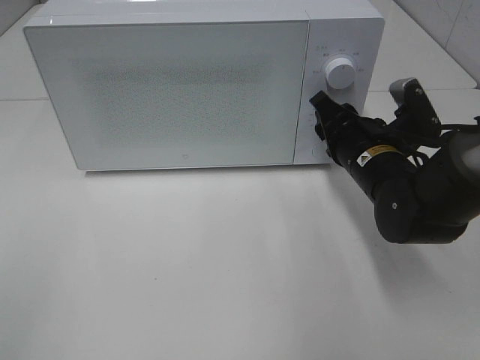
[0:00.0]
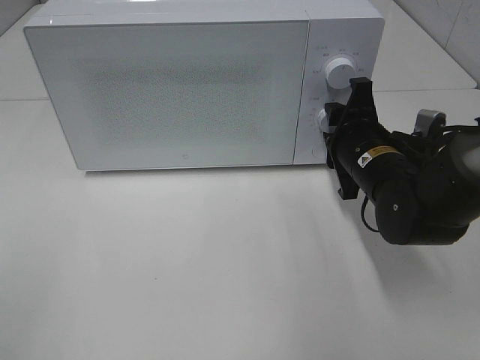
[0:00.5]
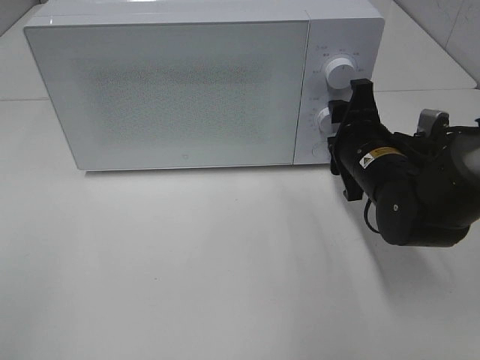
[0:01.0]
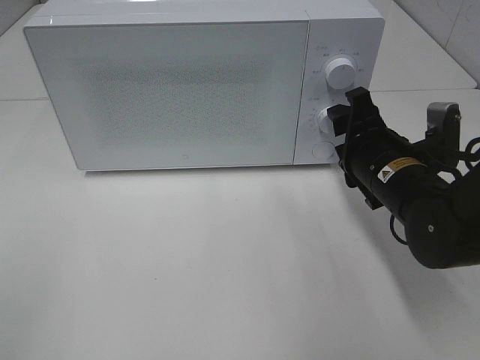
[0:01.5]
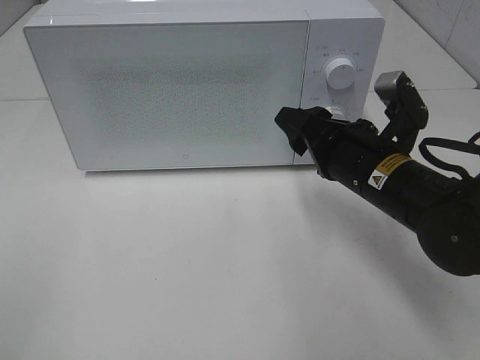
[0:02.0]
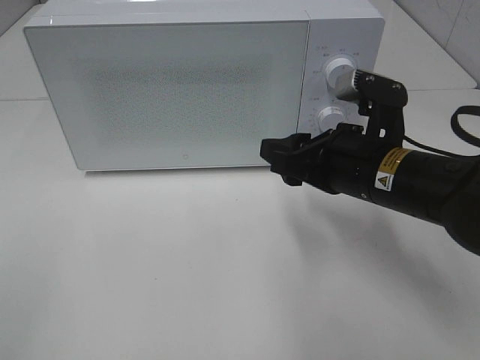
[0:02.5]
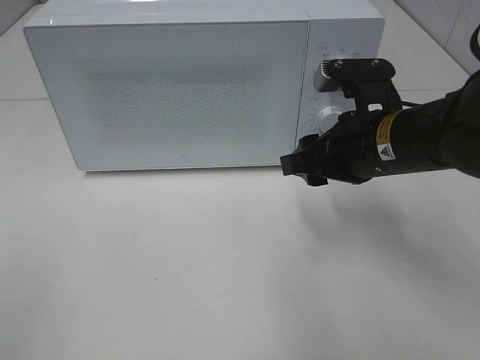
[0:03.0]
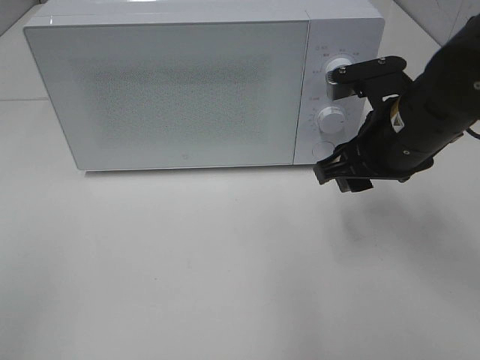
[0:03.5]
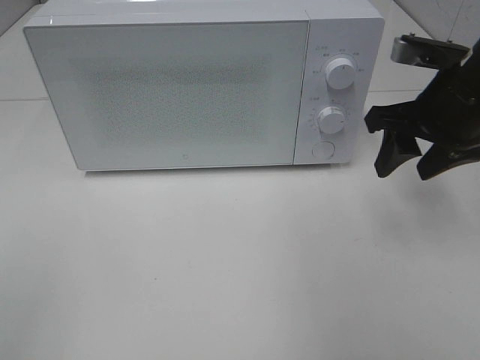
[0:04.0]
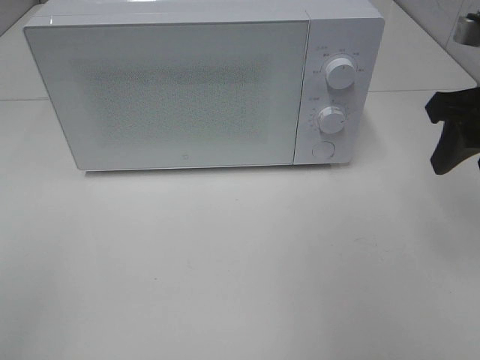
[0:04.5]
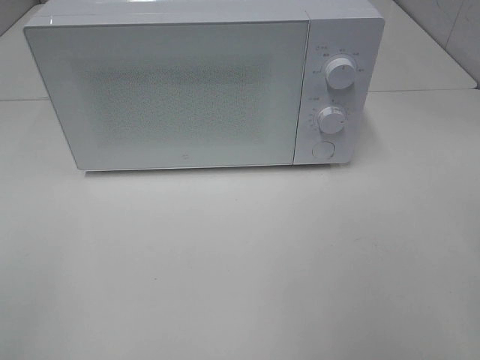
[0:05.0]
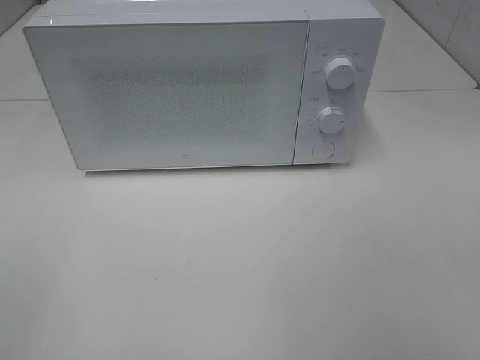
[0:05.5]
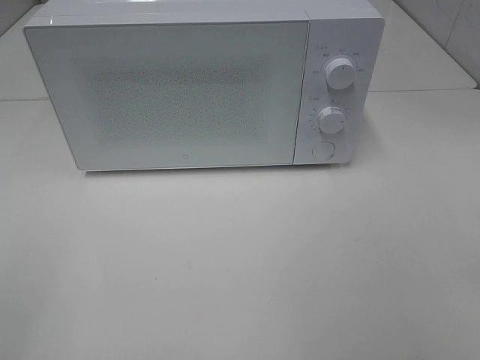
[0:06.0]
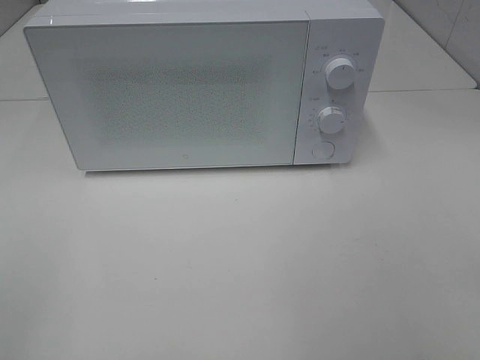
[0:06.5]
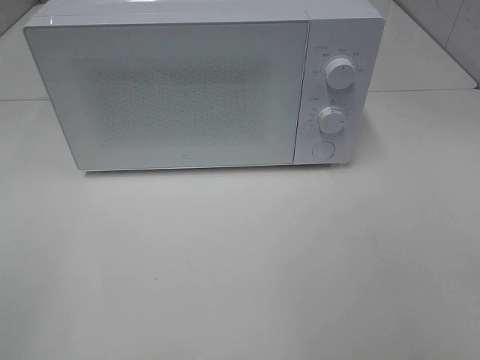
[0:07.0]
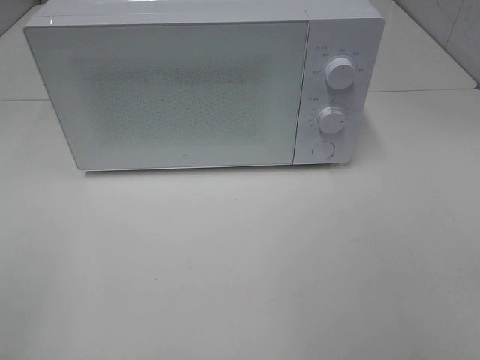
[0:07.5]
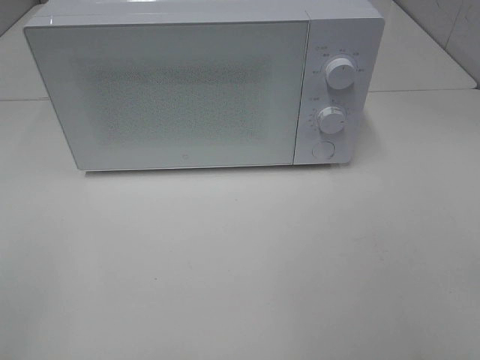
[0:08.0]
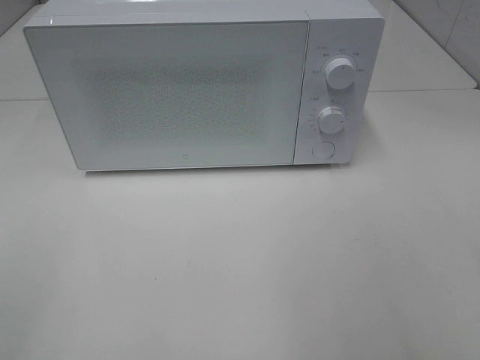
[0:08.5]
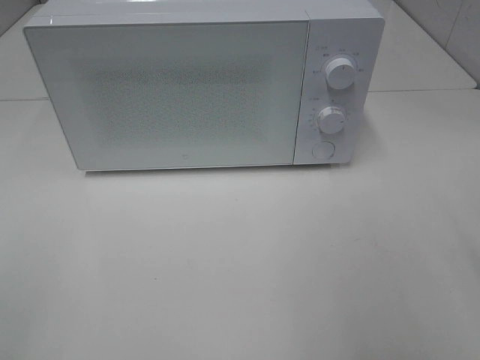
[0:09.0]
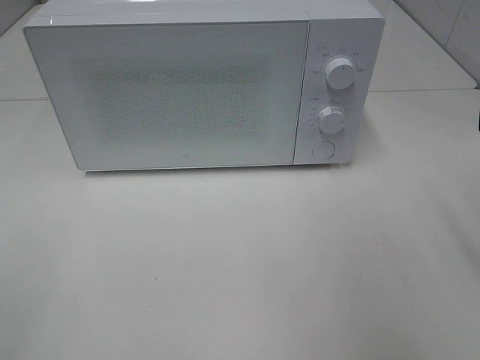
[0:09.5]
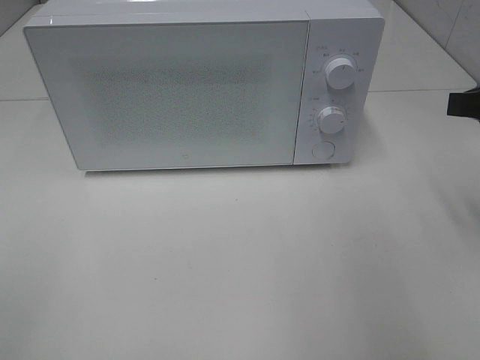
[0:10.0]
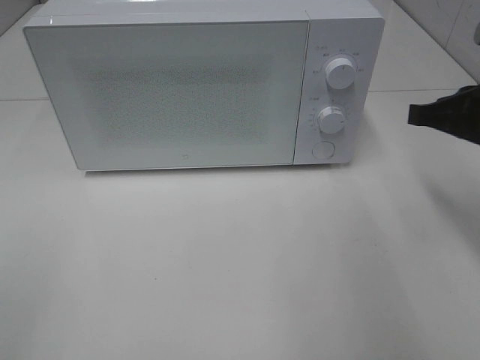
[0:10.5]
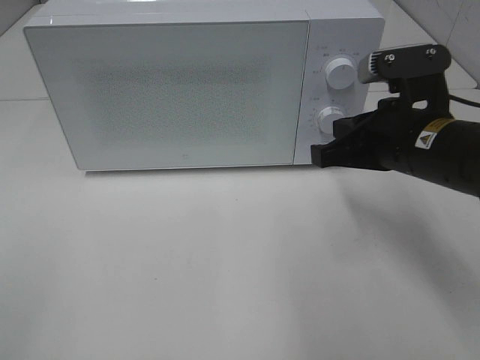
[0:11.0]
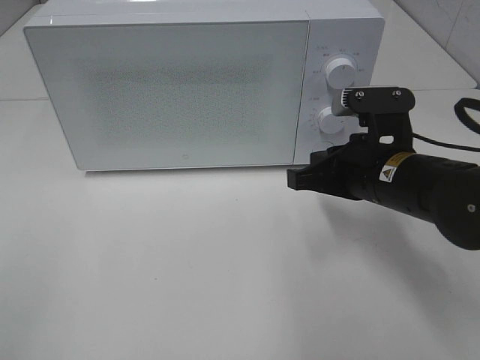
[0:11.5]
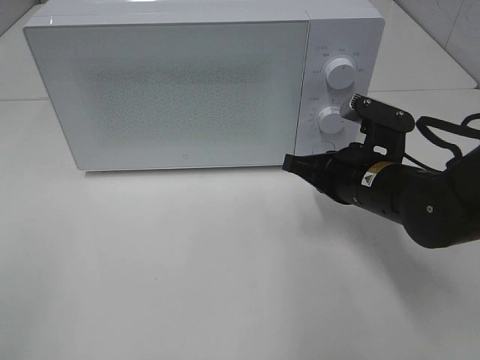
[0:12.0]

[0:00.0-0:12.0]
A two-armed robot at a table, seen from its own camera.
Task of the whole recording: Heat the burger.
0:00.0 to 0:02.0: The right gripper shifts roughly 5 cm backward.
0:02.0 to 0:04.0: The right gripper is displaced to the right and upward by roughly 10 cm.
0:04.0 to 0:06.0: The right gripper goes approximately 30 cm backward.
0:08.0 to 0:10.0: The right gripper moves forward, roughly 25 cm.
0:10.0 to 0:12.0: The right gripper goes some 20 cm downward and to the left, and closes its fingers.

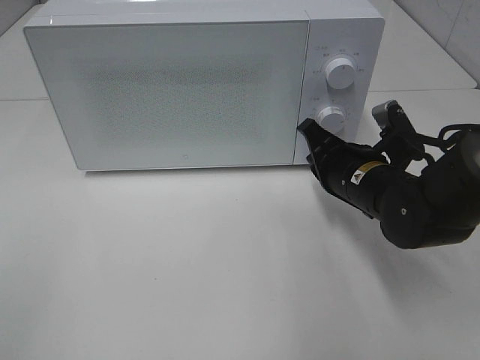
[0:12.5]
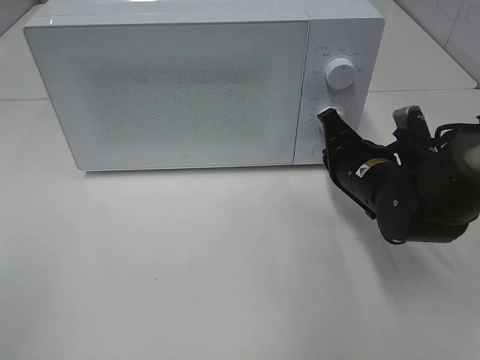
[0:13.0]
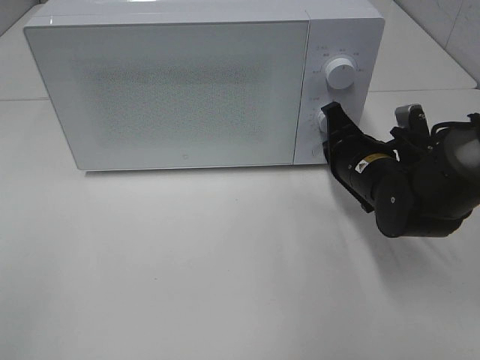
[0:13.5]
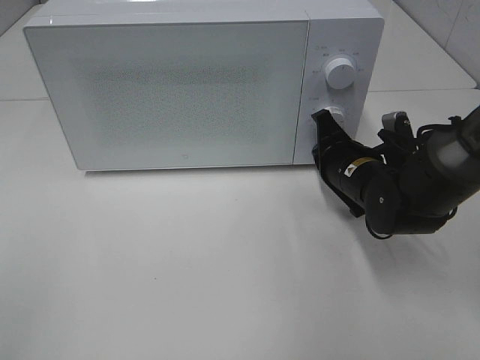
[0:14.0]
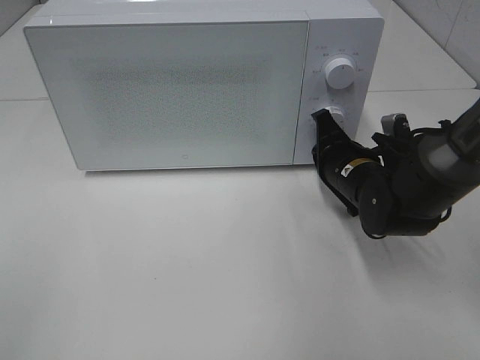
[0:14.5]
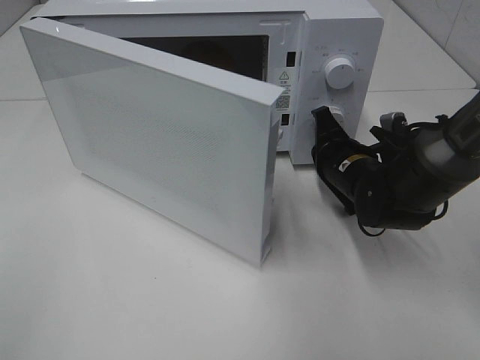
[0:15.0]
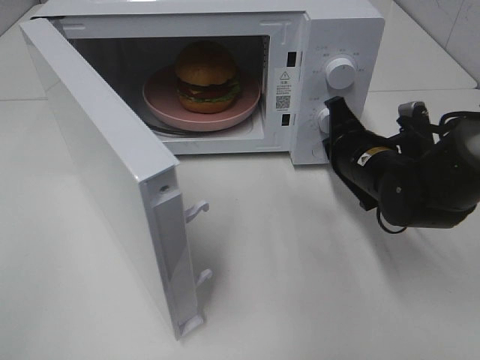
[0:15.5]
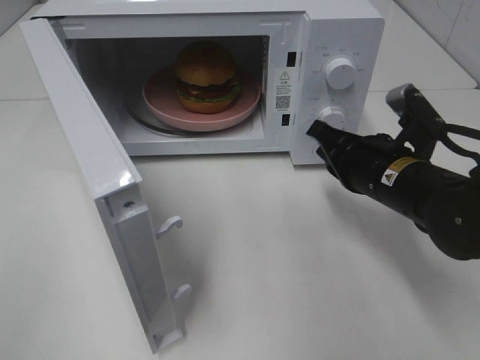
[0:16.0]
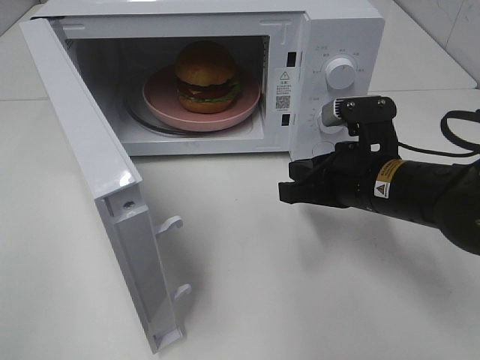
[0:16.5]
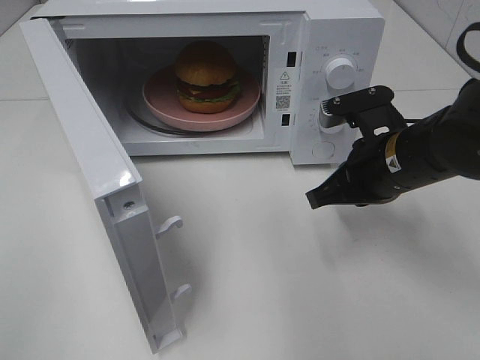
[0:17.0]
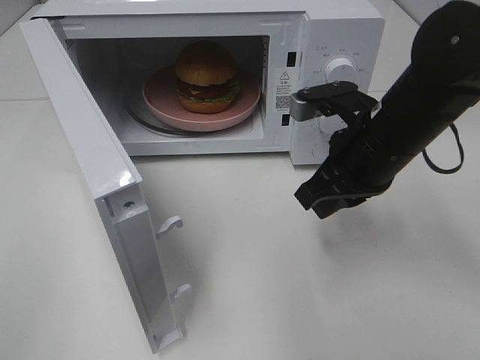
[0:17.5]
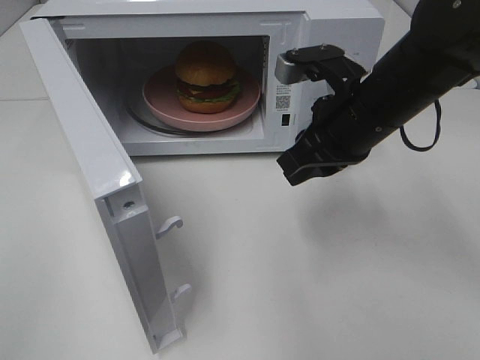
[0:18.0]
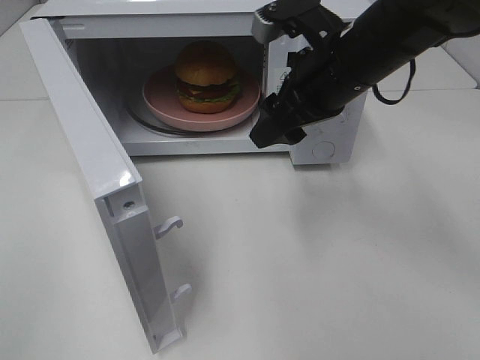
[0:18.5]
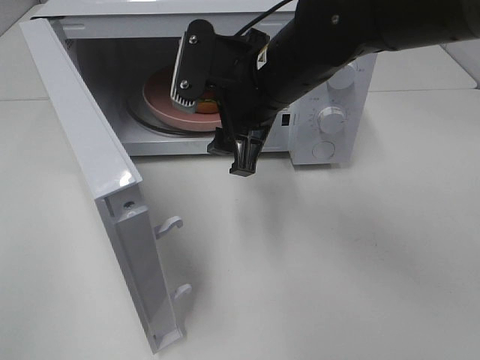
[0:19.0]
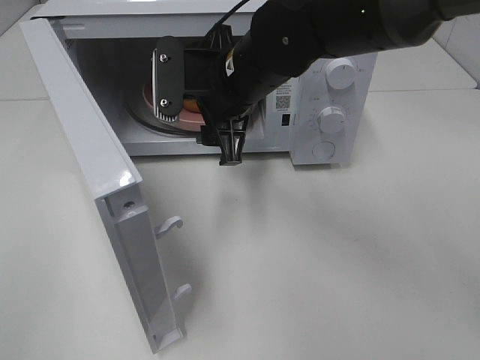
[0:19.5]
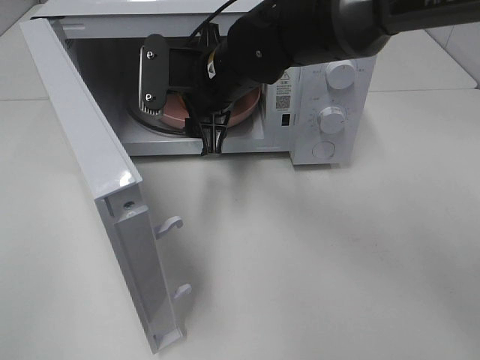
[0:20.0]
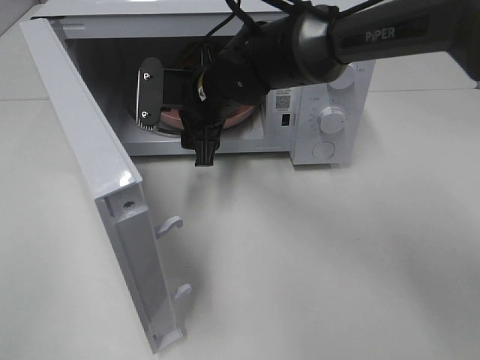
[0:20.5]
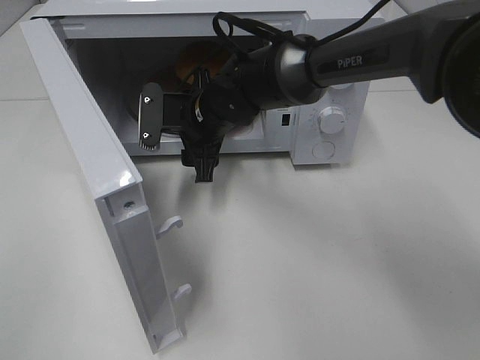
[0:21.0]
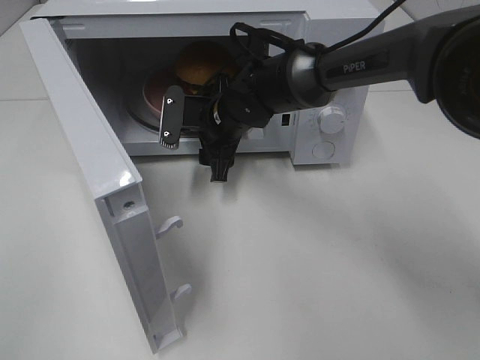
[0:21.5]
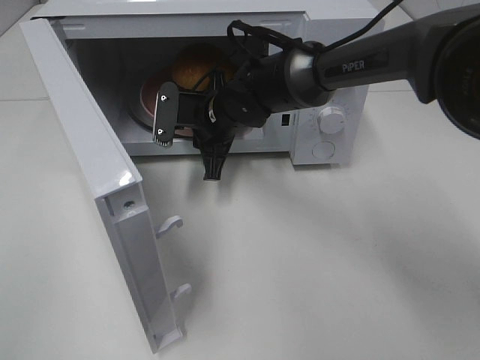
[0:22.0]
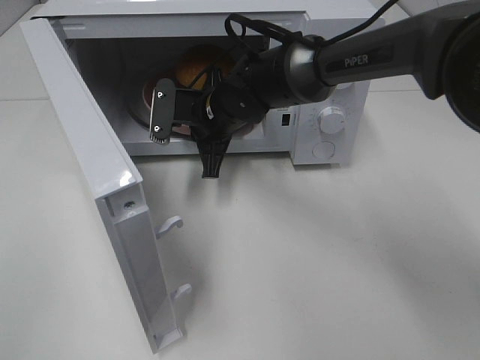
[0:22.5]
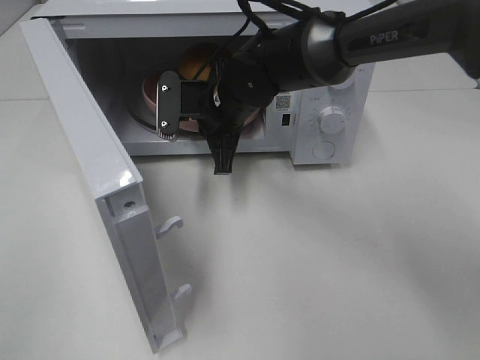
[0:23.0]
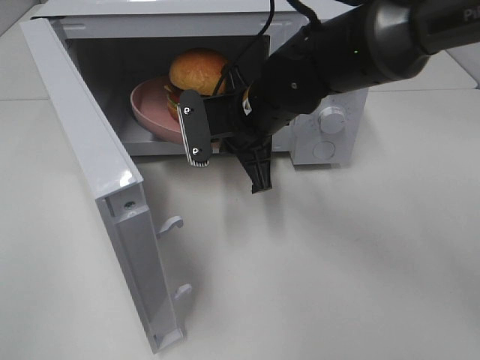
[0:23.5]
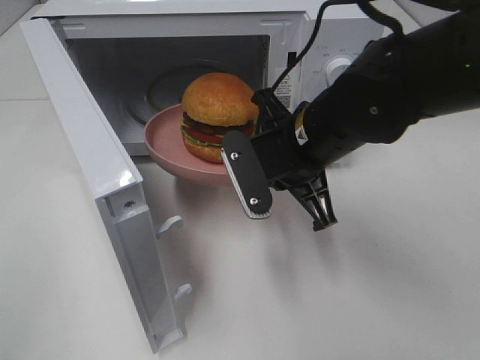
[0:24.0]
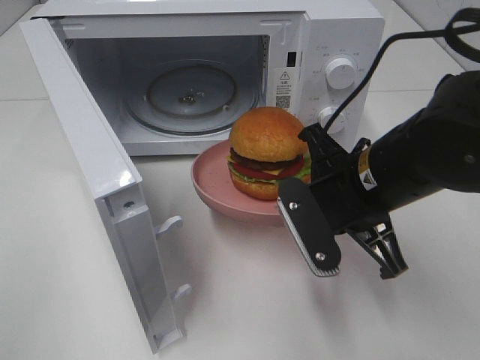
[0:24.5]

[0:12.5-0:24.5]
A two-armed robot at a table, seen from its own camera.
Task of the whole recording: Heat the burger.
Step, 0:12.5 to 0:15.5: Right hand: press the switch.
Step, 0:16.0 to 0:22.0: Right hand: grab the plate with the hamburger.
0:12.5 to 0:14.5: The grippers move only a little.
0:14.5 to 0:16.5: The right gripper is displaced backward and upward by roughly 10 cm.
0:16.5 to 0:18.5: The right gripper goes some 10 cm upward and forward, and opens.
0:18.5 to 0:20.5: The right gripper travels to the left, downward and forward by about 15 cm.
0:20.5 to 0:22.5: The right gripper closes its fingers.
0:22.5 to 0:24.5: The right gripper shifts approximately 25 cm backward and to the right.

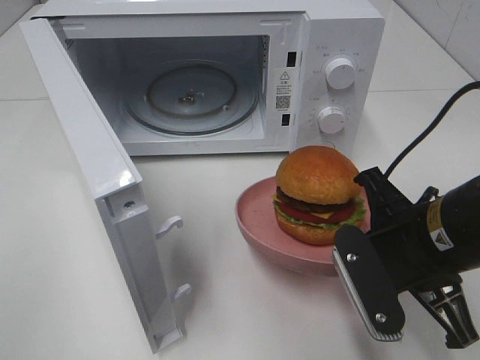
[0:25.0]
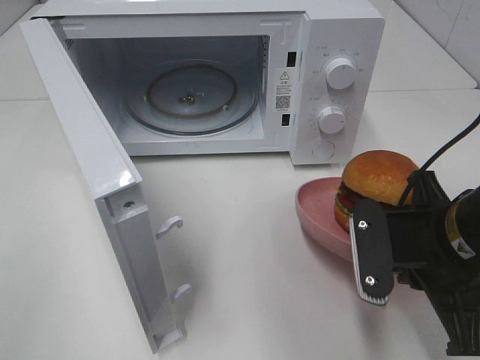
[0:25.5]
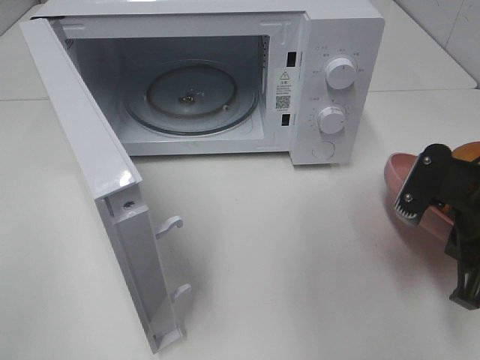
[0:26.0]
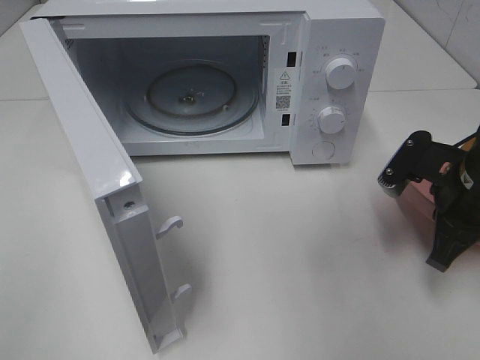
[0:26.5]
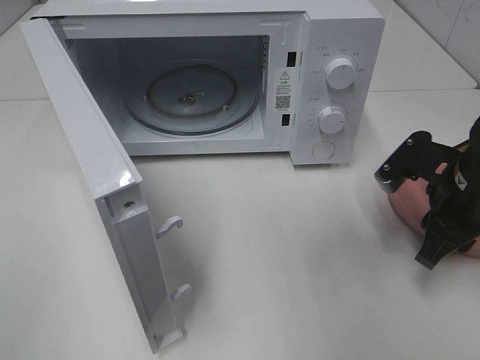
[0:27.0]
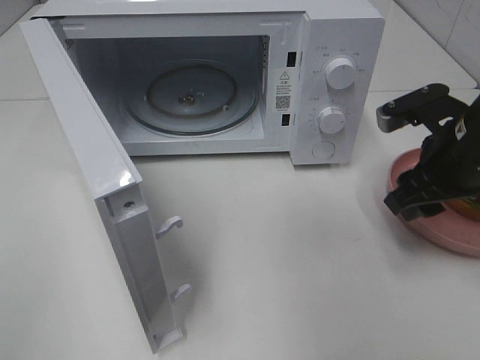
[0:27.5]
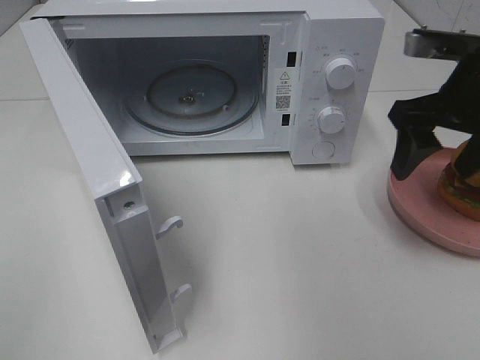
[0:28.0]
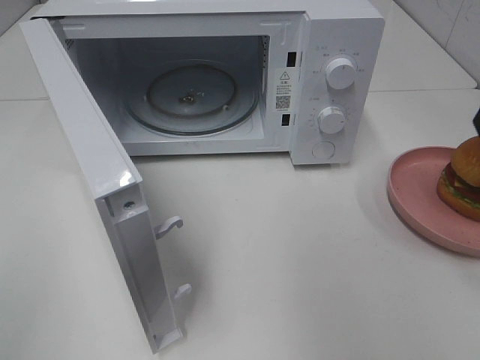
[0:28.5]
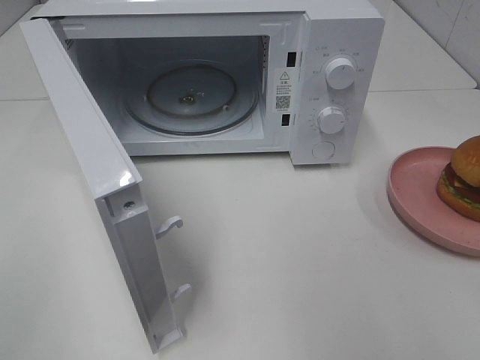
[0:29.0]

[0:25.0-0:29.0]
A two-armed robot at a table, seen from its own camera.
Task of the whole recording: Heat the burger.
Step, 0:25.0 to 0:27.0: Right hand: place the plate on the table.
0:25.0 to 0:27.0: The right gripper is displaced forward and to the right by approximately 10 cm, and opens.
0:27.0 to 0:29.0: The right gripper goes about 25 cm upward and backward, and opens up.
